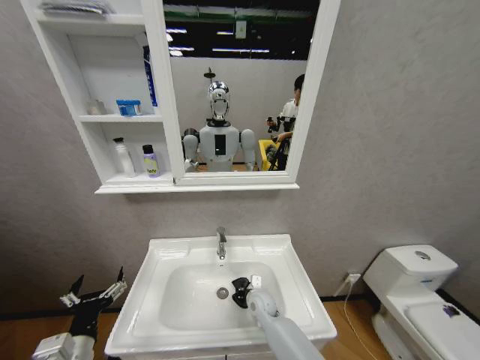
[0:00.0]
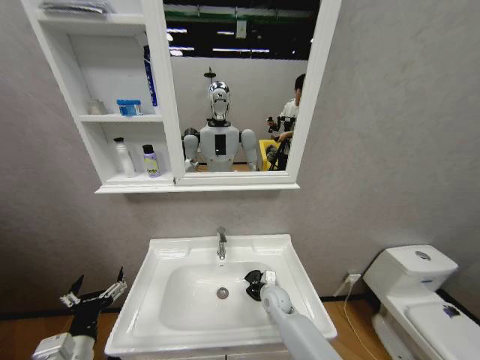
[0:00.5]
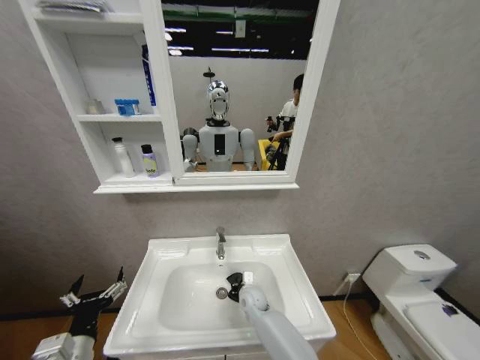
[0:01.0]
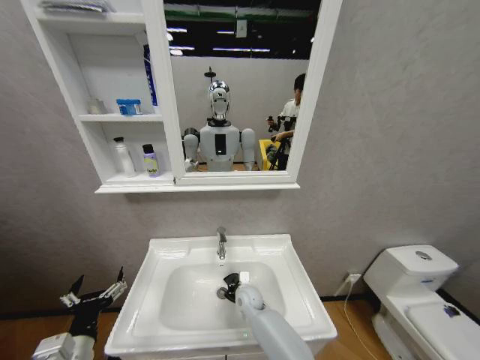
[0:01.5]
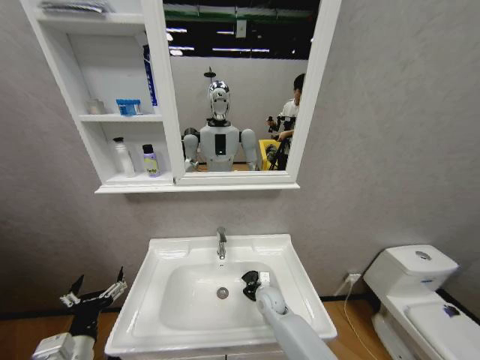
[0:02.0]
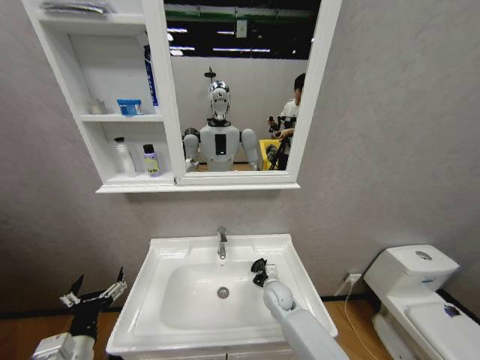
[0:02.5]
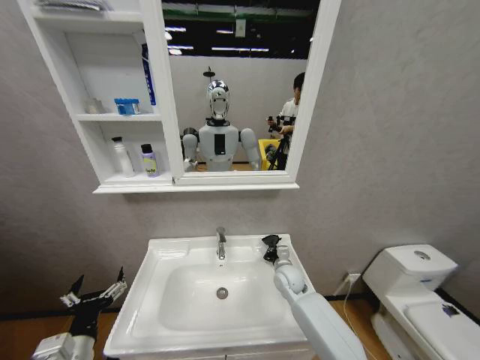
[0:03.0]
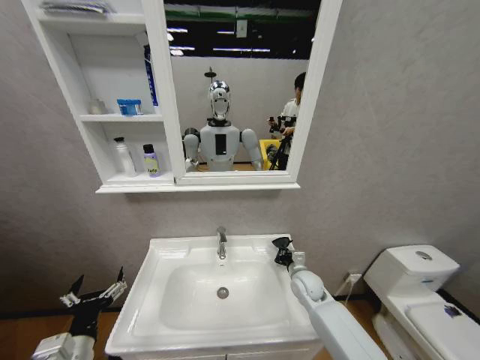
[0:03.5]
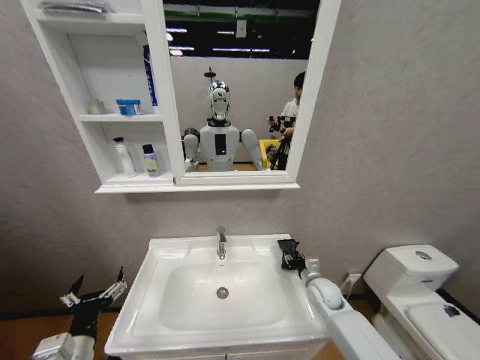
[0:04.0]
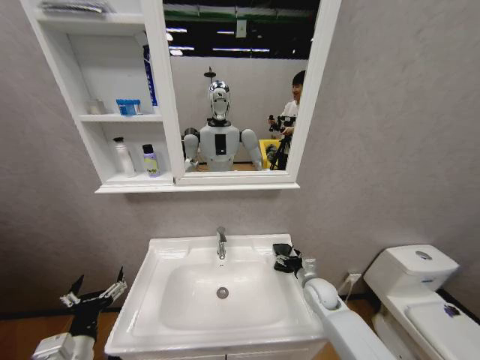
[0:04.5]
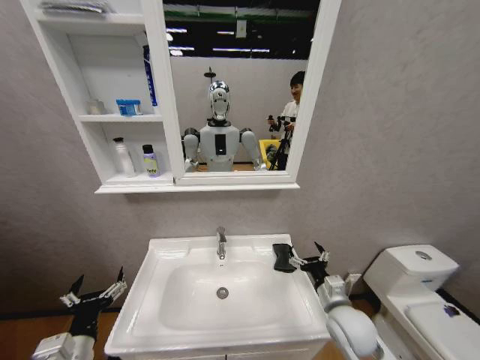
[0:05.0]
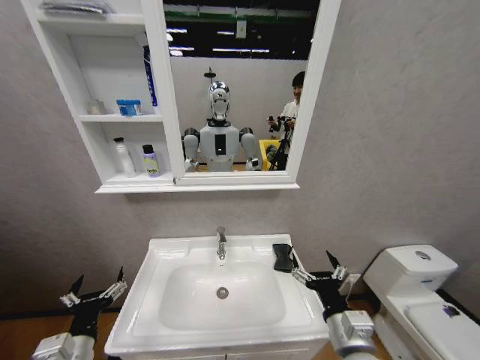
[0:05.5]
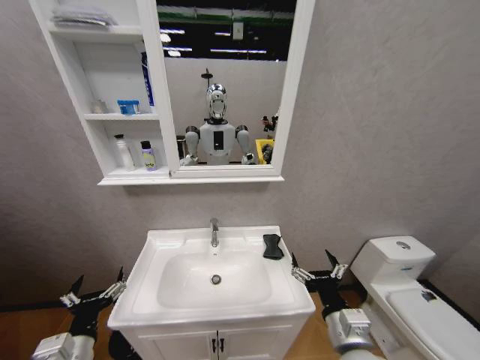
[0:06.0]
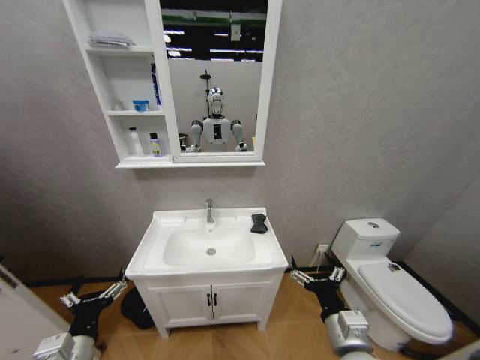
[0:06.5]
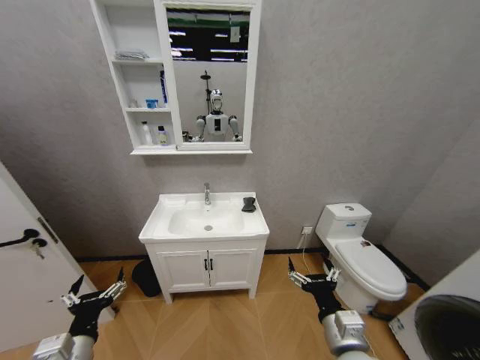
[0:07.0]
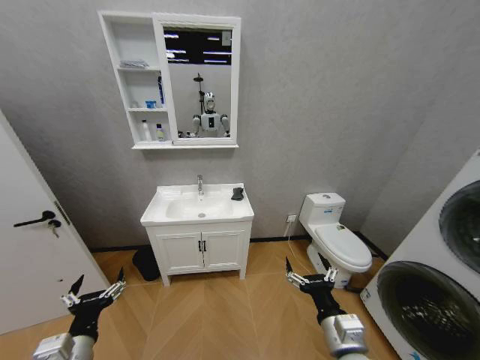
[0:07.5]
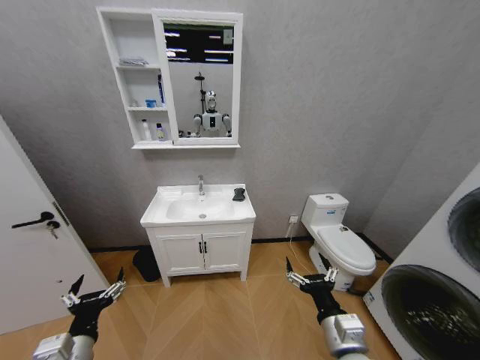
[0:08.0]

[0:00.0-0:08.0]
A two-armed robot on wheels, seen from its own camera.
Task of the whole recording: Move facial cleanser and shampoo from washbasin to cabinet, then wipe washbasin with towel.
0:00.0 to 0:02.0: The right gripper goes left and right, about 10 cm each way, reversing 2 times.
0:02.0 to 0:04.0: The right gripper shifts about 15 cm to the right, and opens its fingers.
0:04.0 to 0:06.0: The right gripper heads backward and upward, covering about 25 cm, and opens up.

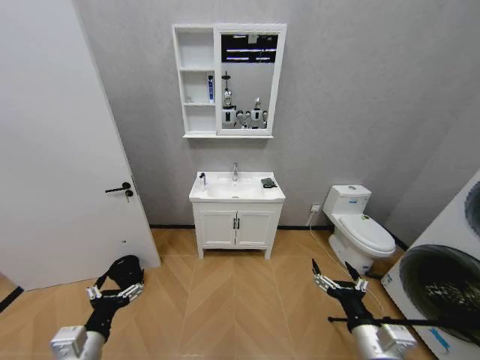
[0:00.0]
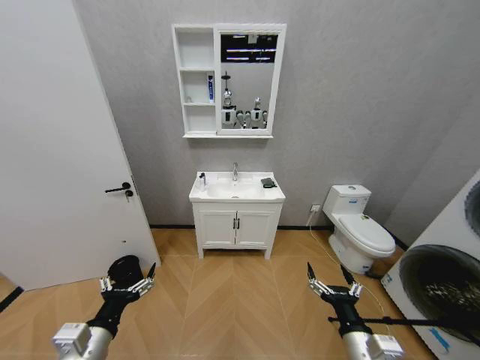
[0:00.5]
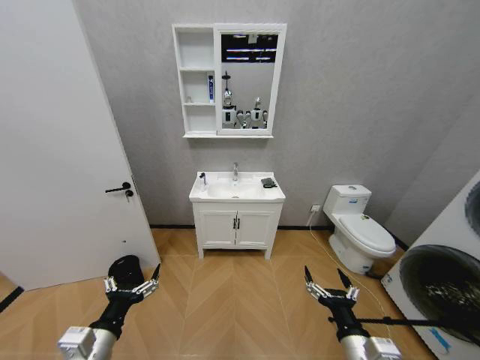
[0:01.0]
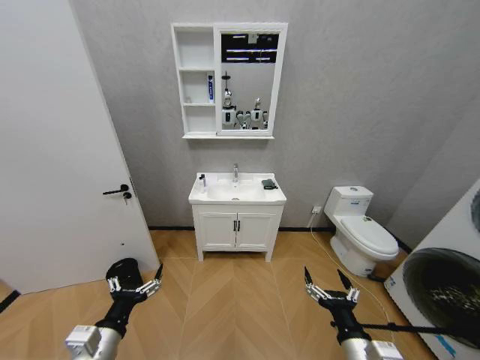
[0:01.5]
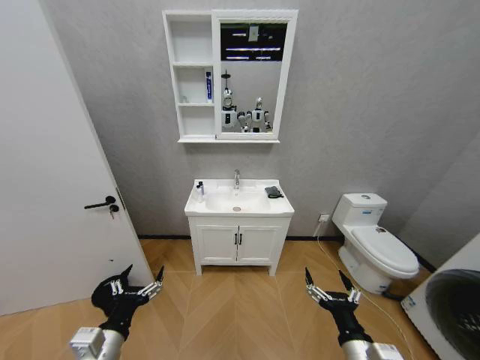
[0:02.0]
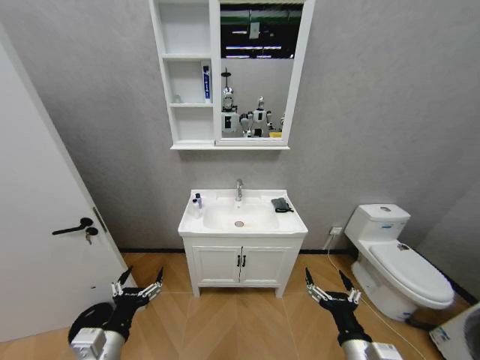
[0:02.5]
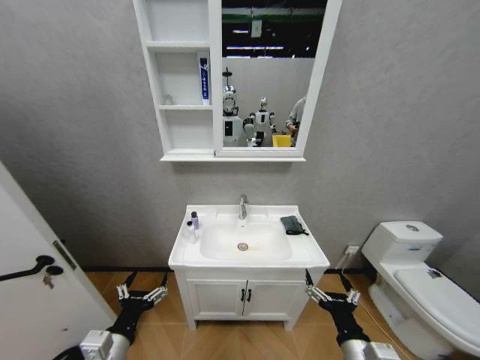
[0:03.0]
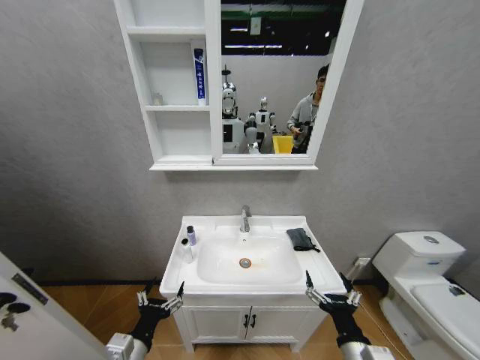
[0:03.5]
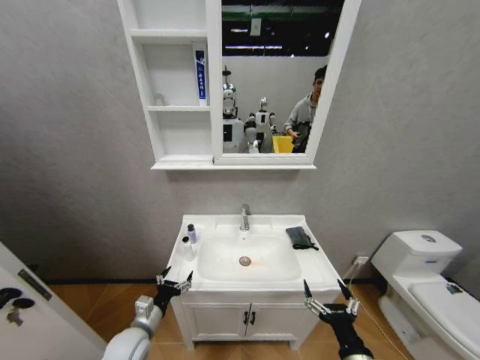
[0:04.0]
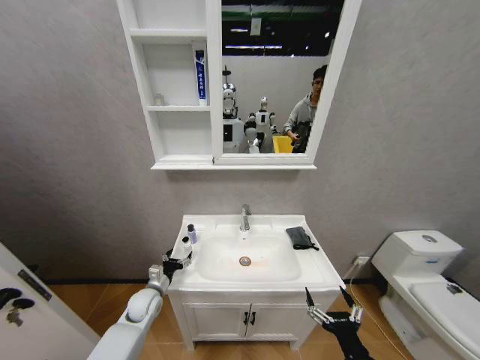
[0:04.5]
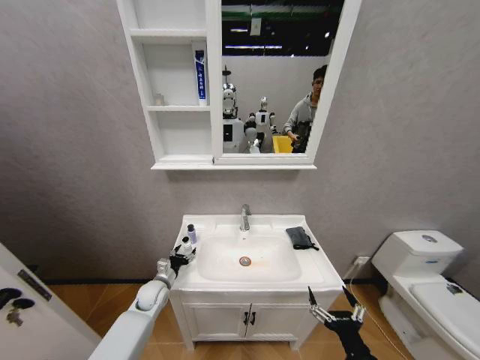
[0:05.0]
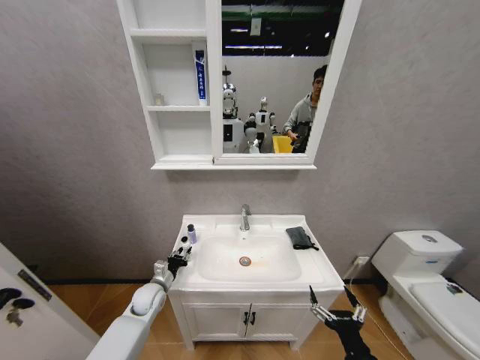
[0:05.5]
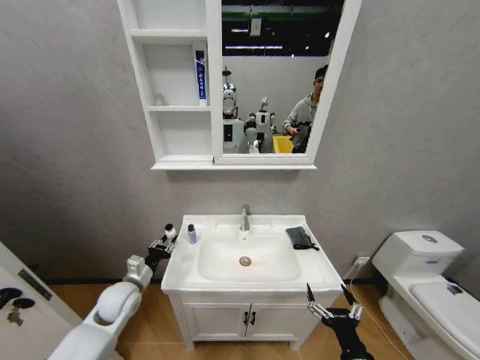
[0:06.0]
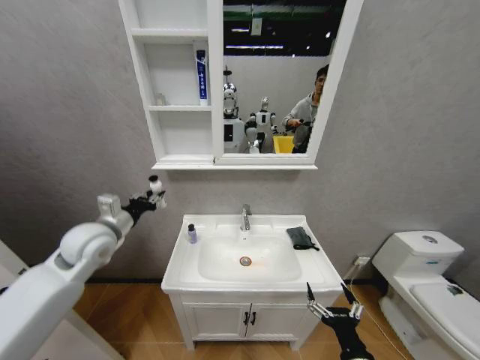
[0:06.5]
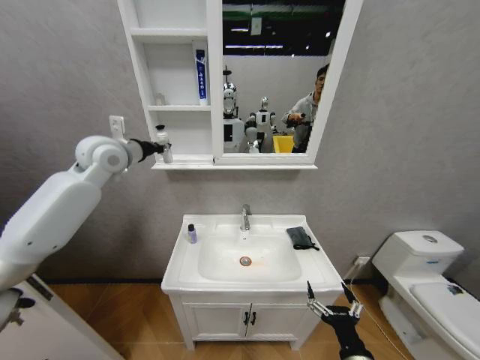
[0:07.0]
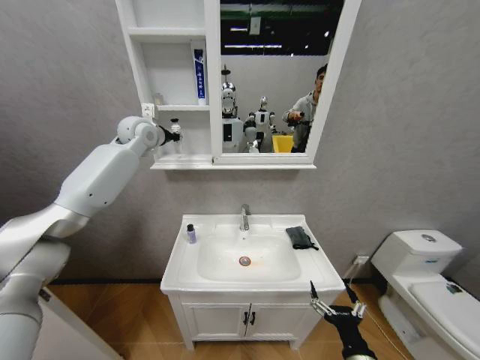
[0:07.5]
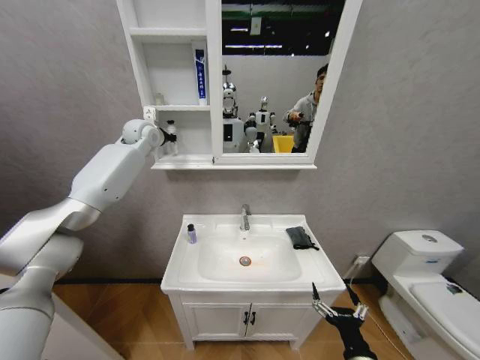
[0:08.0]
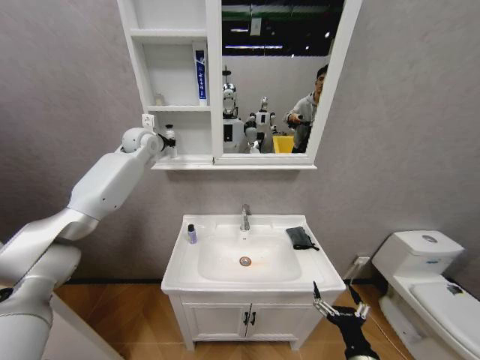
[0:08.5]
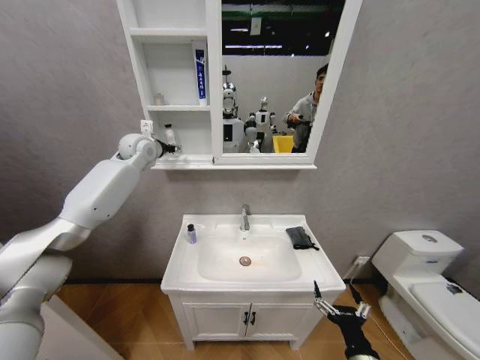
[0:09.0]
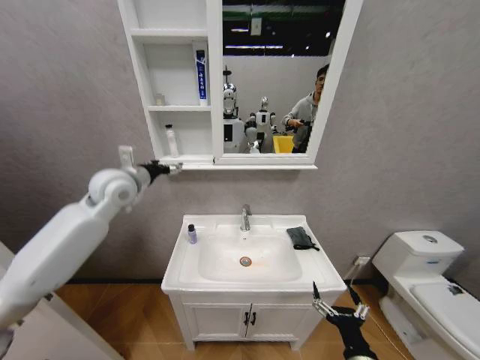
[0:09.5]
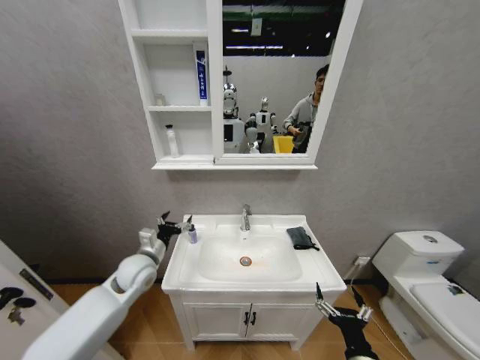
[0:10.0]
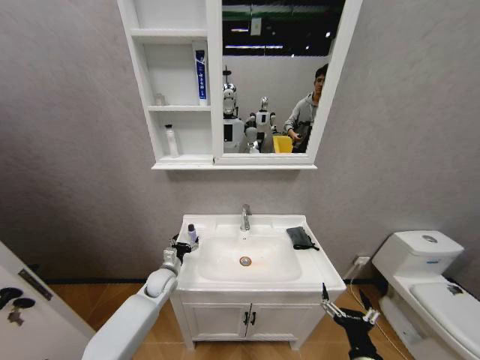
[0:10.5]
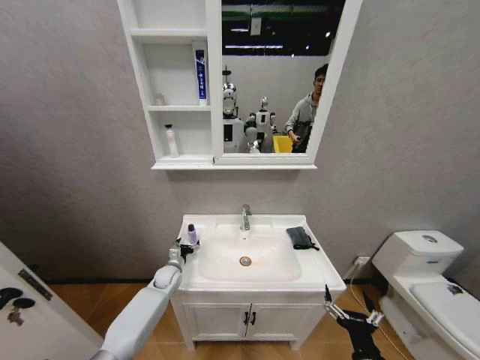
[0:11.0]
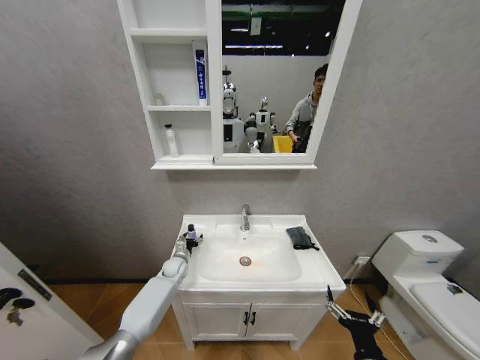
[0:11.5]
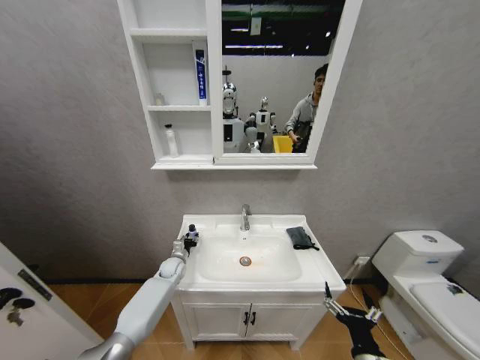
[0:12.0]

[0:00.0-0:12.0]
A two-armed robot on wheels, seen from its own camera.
Task of the whole recording: Move facial cleanser and shampoo from washbasin to cabinet, then wipe washbasin with towel.
0:02.0 to 0:04.0: The left gripper is displaced downward and forward by approximately 15 cm.
0:04.0 to 0:06.0: The left gripper shifts approximately 10 cm forward and upward, and closes up.
0:06.0 to 0:08.0: The left gripper goes roughly 50 cm upward and forward.
0:08.0 to 0:10.0: The left gripper travels downward and backward by approximately 40 cm, and opens up.
0:10.0 to 0:12.0: The left gripper is displaced downward and forward by approximately 20 cm, and closes.

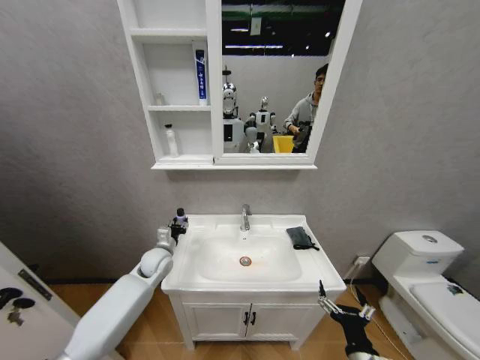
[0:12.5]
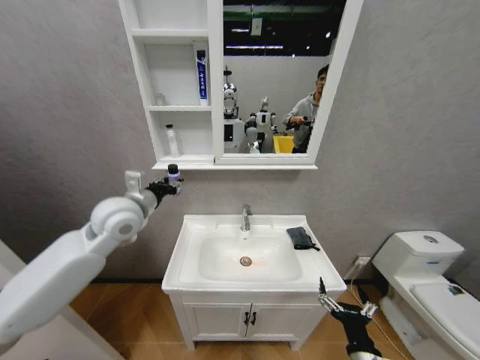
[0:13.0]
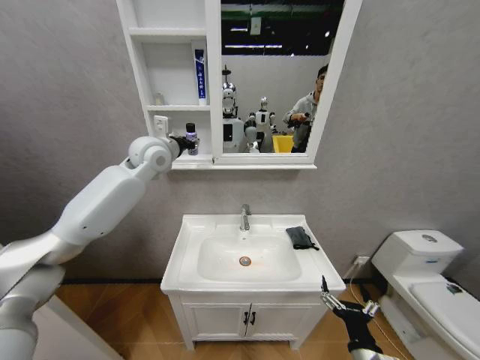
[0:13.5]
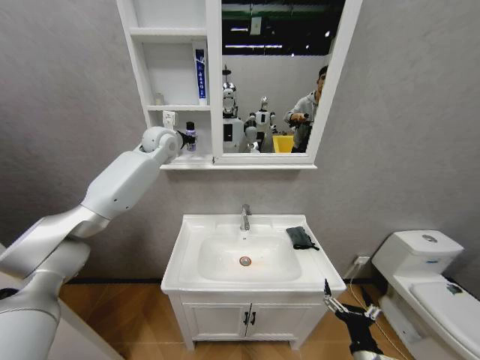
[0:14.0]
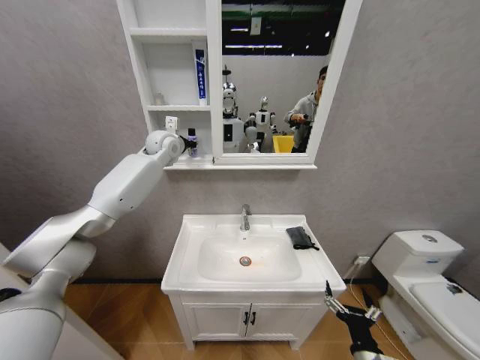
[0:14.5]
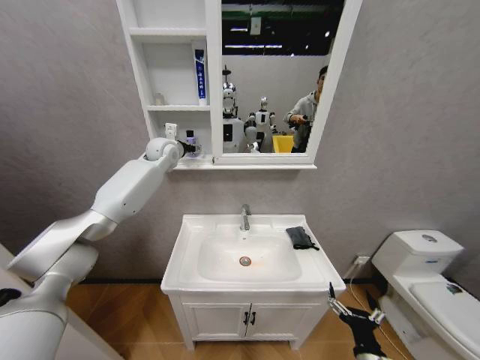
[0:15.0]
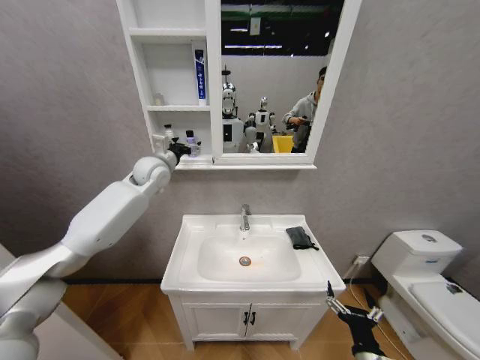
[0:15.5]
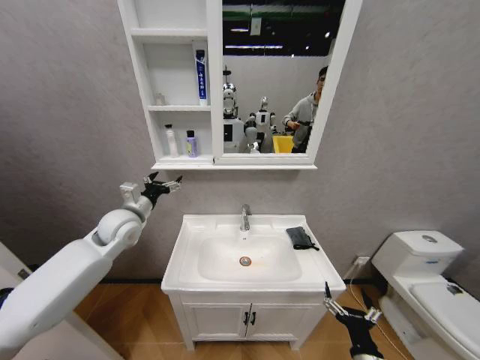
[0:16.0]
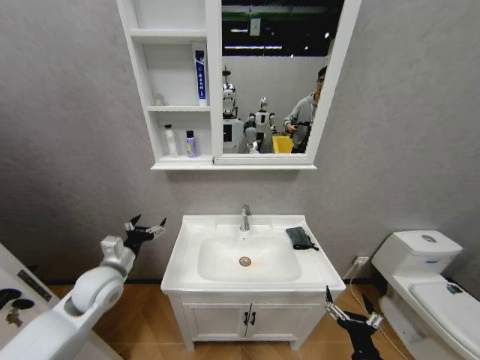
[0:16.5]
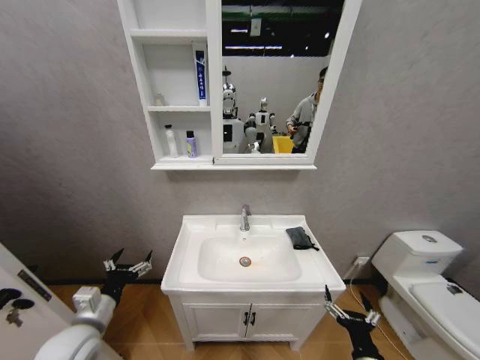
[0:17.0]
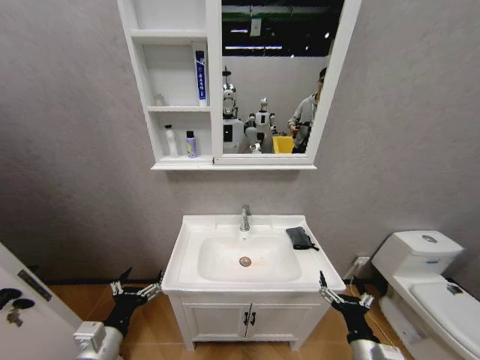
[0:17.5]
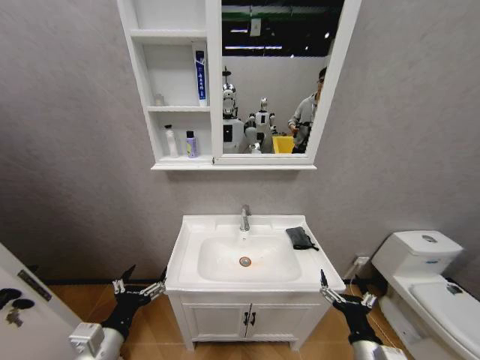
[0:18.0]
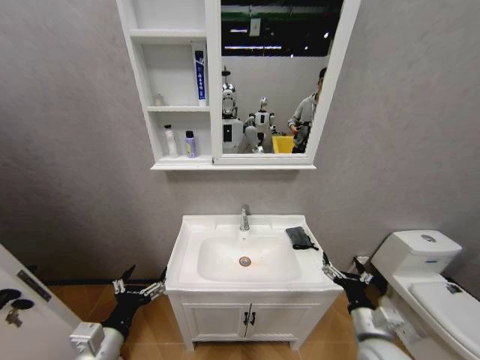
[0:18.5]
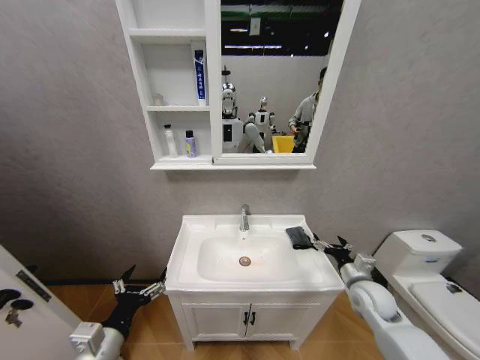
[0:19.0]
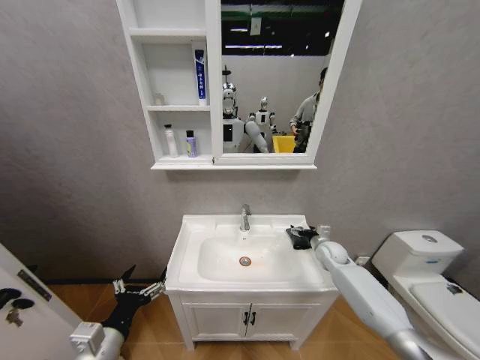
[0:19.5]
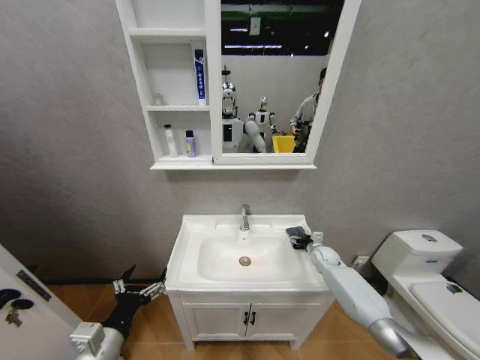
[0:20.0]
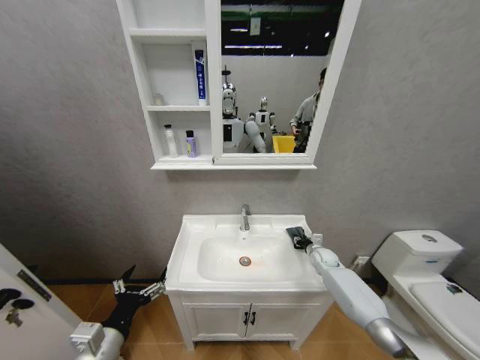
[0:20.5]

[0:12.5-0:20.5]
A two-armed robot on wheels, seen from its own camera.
Task of the whole recording: Move facial cleanser and shampoo from washbasin to cabinet, then wipe washbasin with towel.
0:12.5 to 0:14.5: The left gripper travels upward and forward by roughly 35 cm.
0:14.5 to 0:16.5: The left gripper moves backward and downward, about 40 cm, and opens its fingers.
0:16.5 to 0:18.5: The right gripper moves forward, some 10 cm, while the left gripper is displaced backward by some 20 cm.
0:18.5 to 0:20.5: The right gripper goes about 35 cm forward, and closes its fingers.
